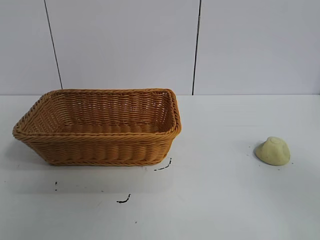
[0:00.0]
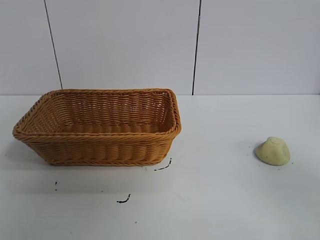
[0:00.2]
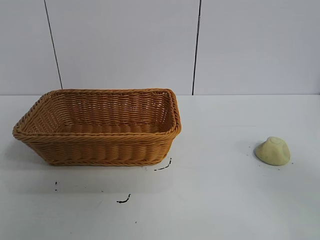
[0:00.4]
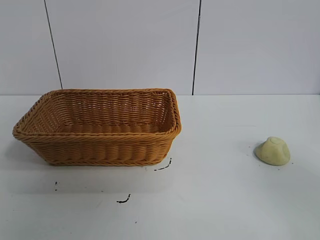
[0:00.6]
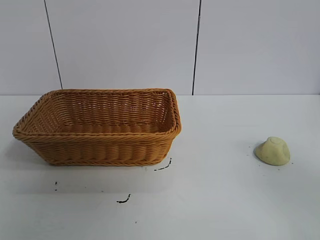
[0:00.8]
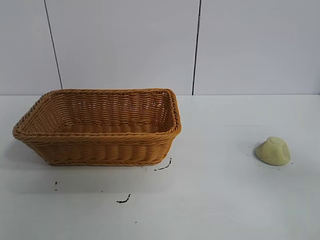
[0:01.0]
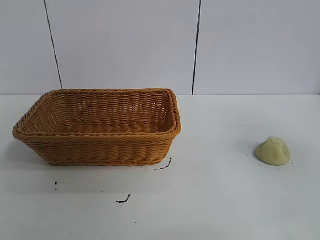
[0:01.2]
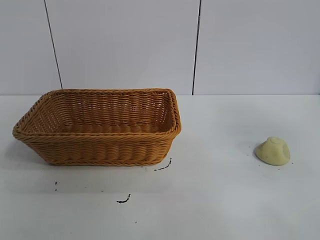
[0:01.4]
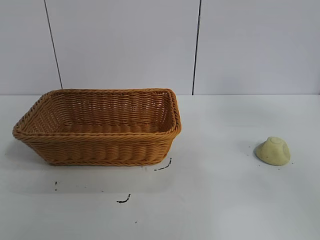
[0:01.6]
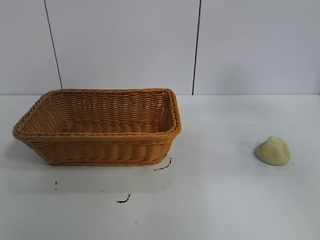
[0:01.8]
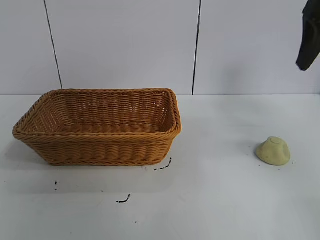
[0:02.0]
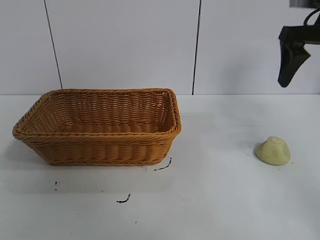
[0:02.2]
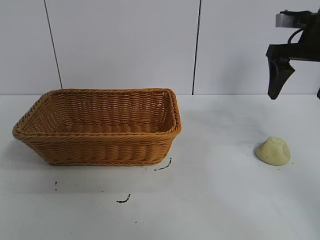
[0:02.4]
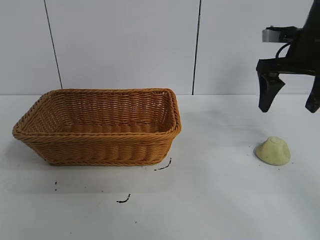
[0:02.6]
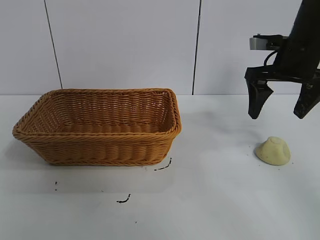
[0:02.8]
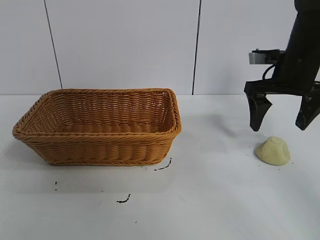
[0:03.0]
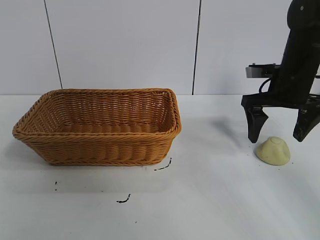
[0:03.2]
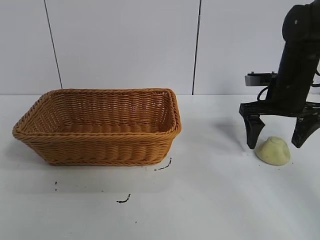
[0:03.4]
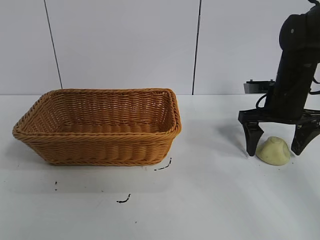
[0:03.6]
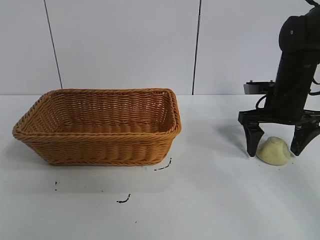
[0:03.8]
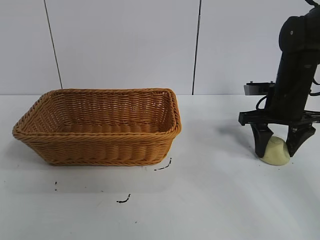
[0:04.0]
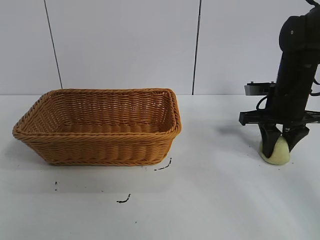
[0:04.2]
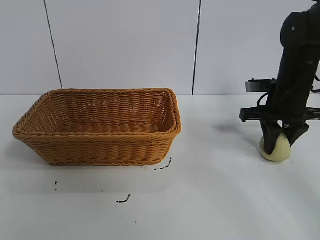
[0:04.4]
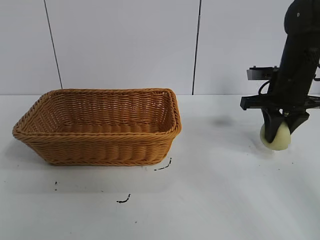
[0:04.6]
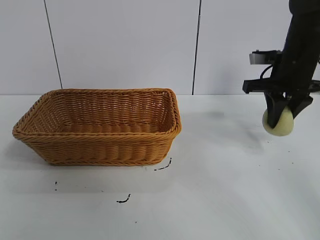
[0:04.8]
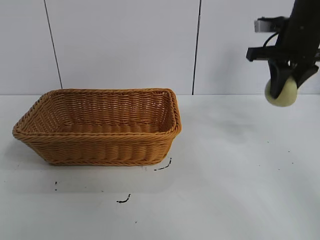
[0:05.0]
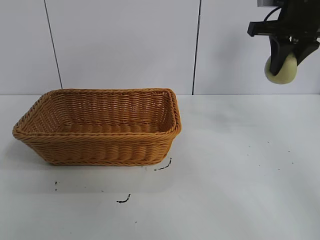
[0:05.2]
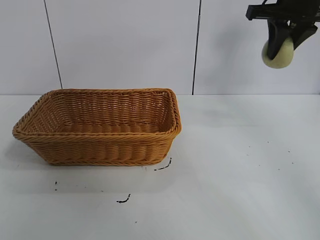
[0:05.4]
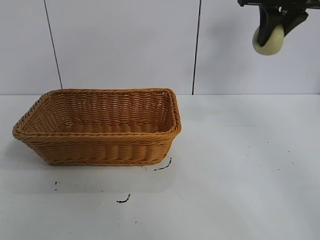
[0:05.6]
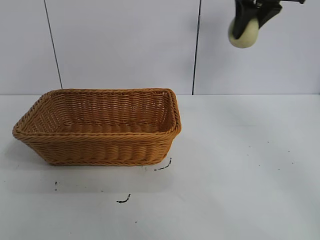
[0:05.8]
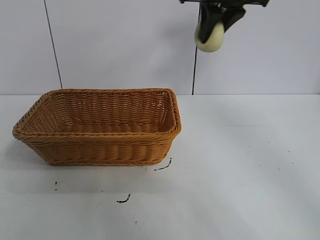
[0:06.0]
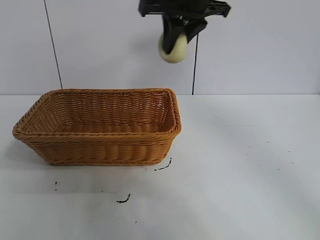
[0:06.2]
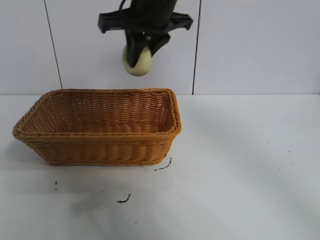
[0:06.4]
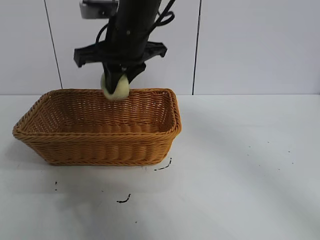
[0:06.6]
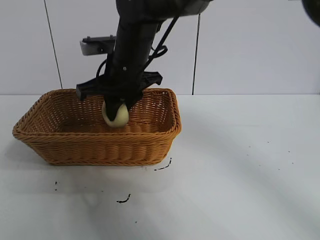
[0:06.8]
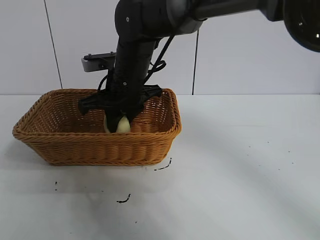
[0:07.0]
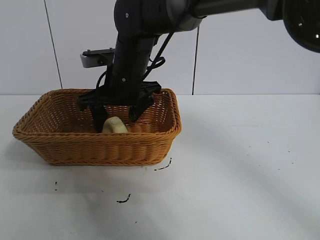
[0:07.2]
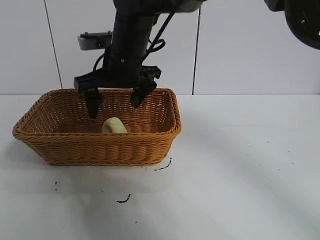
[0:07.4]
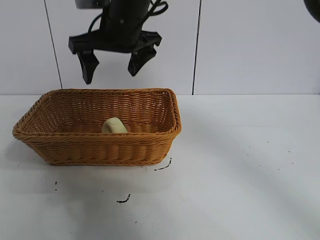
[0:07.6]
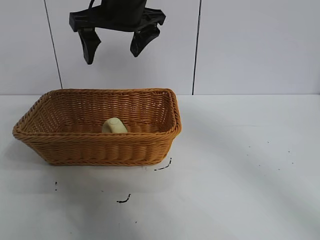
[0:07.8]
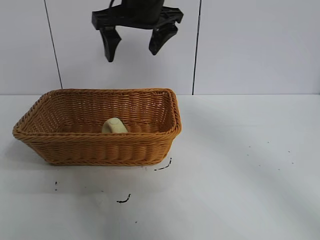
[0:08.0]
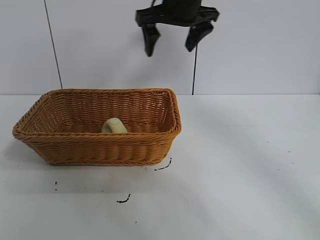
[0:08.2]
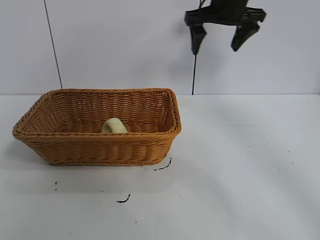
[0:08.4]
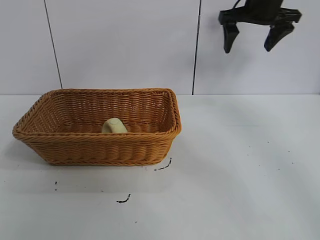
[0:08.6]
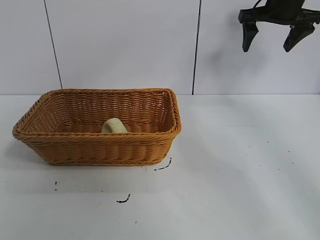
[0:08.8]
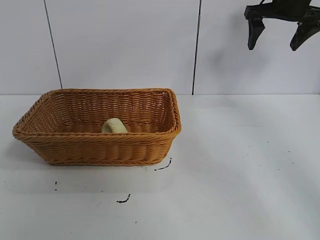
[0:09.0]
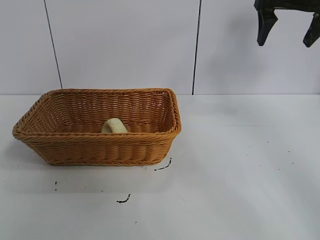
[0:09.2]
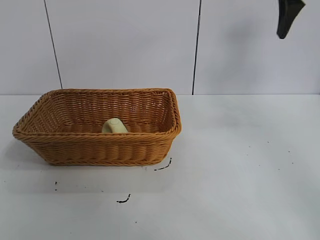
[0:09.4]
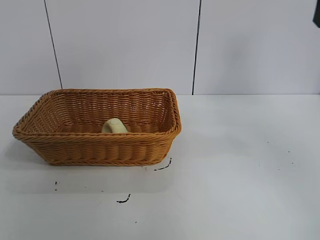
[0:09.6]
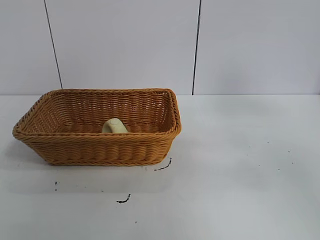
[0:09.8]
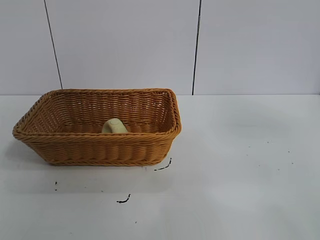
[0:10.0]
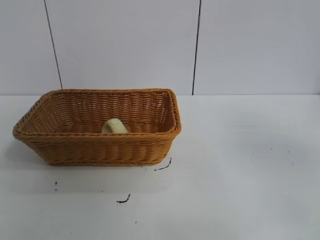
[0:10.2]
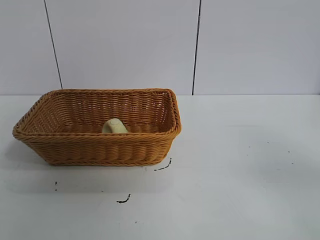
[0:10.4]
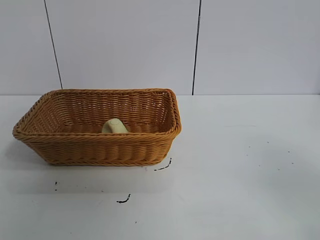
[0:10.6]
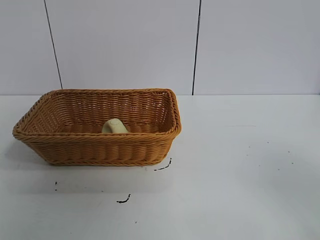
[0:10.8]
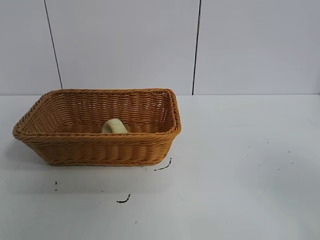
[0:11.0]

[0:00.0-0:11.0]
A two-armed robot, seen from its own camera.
Task of the whole recording: pick up the egg yolk pastry and put it into the basket.
Step, 0:01.0 to 0:04.2: Grasp egg yolk pastry with right gripper.
Step, 0:04.4 to 0:07.2: Place the egg yolk pastry in the basket with right gripper.

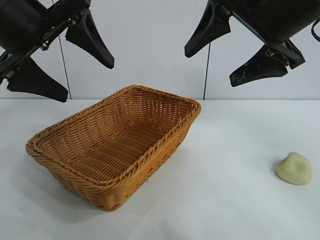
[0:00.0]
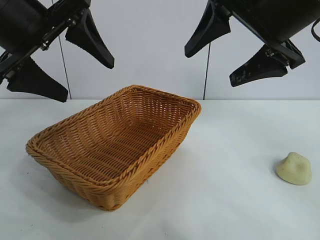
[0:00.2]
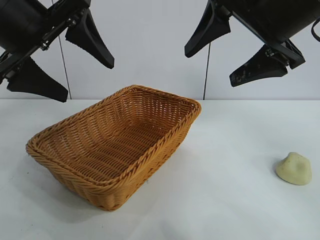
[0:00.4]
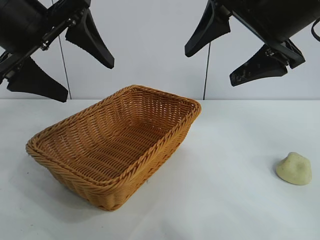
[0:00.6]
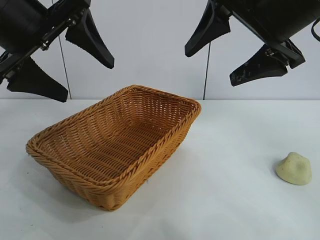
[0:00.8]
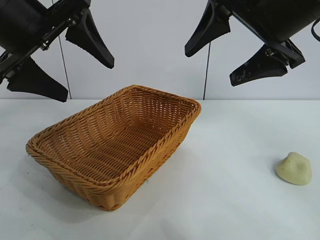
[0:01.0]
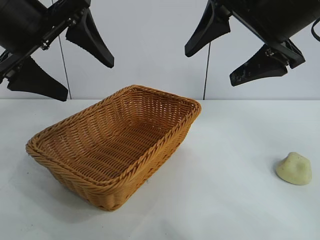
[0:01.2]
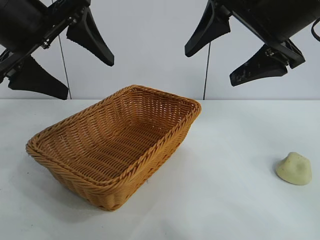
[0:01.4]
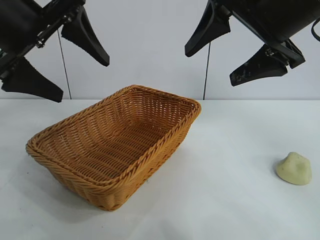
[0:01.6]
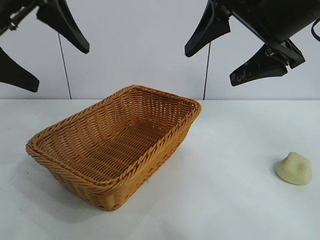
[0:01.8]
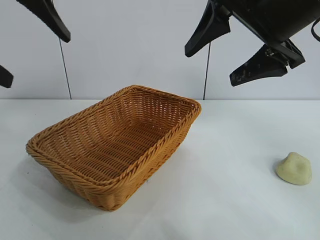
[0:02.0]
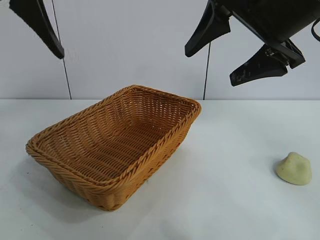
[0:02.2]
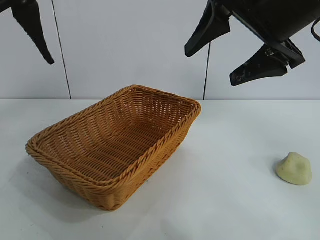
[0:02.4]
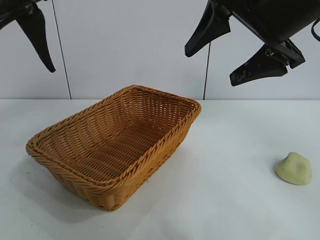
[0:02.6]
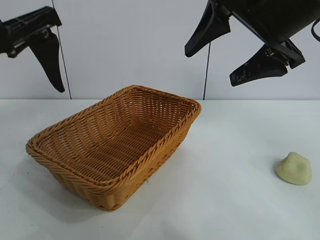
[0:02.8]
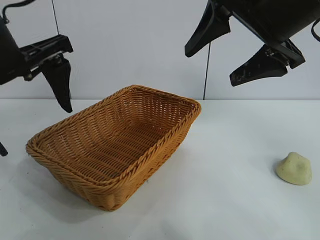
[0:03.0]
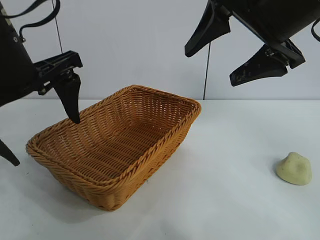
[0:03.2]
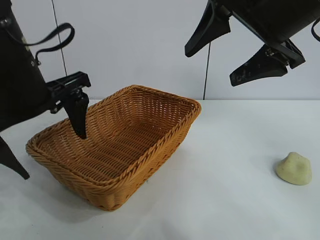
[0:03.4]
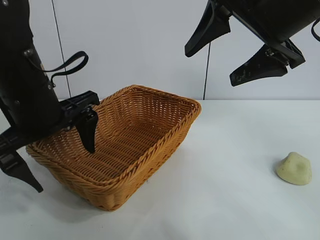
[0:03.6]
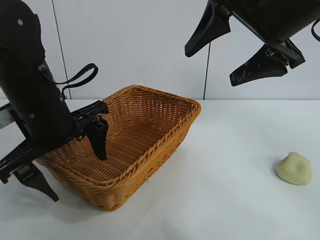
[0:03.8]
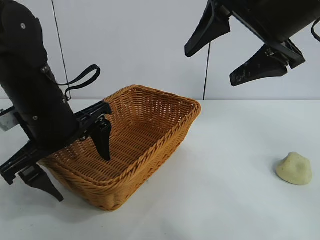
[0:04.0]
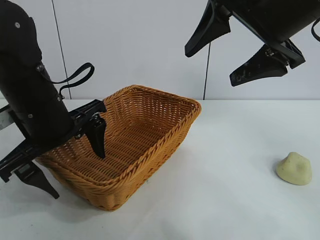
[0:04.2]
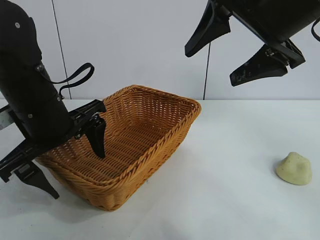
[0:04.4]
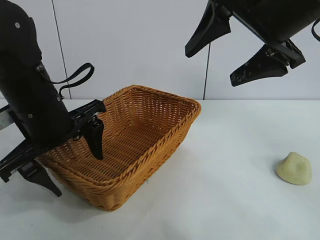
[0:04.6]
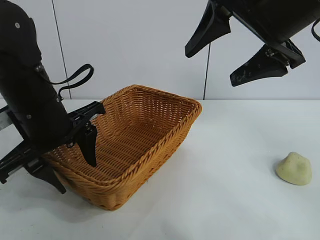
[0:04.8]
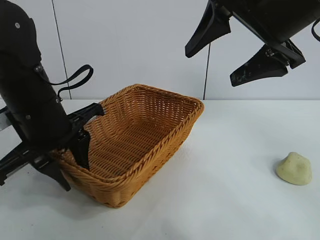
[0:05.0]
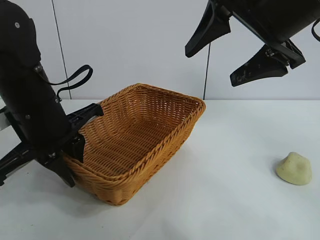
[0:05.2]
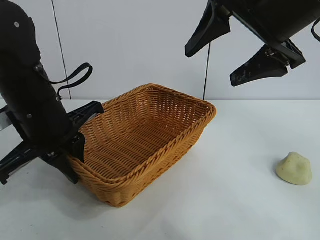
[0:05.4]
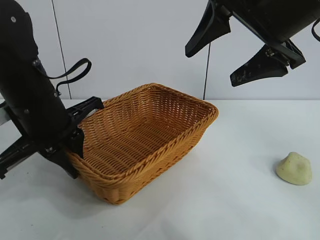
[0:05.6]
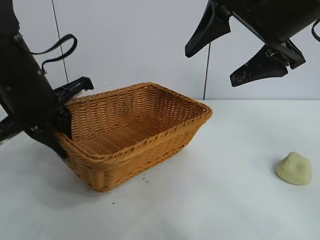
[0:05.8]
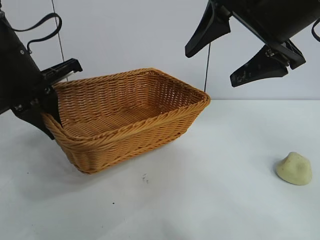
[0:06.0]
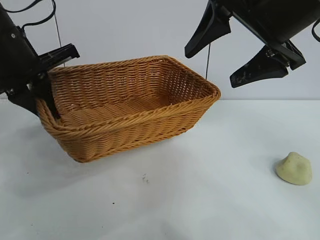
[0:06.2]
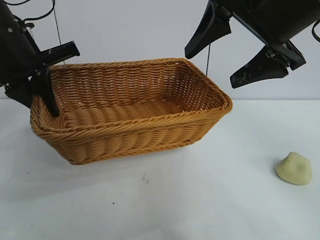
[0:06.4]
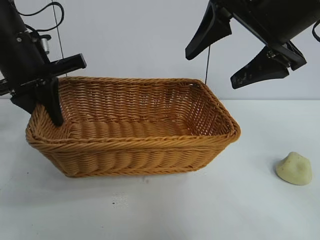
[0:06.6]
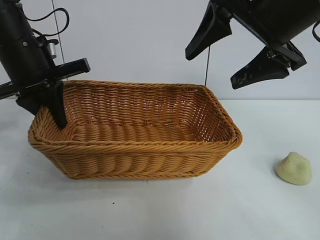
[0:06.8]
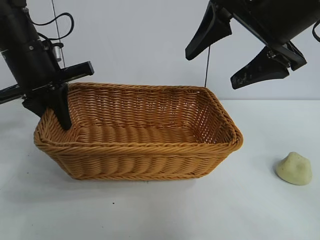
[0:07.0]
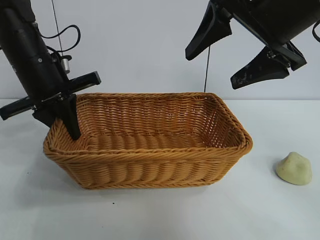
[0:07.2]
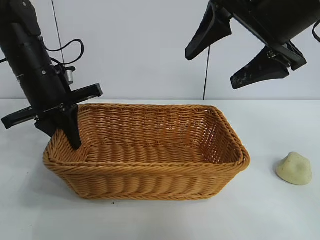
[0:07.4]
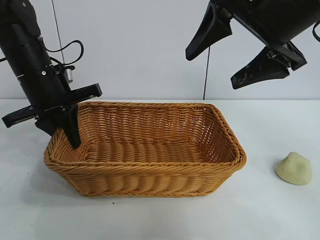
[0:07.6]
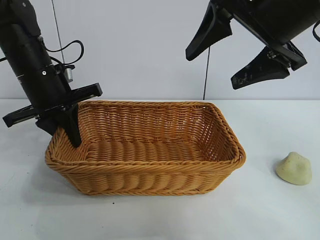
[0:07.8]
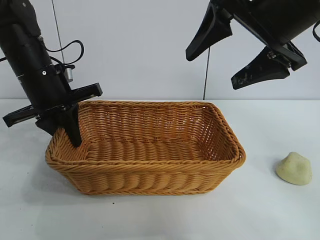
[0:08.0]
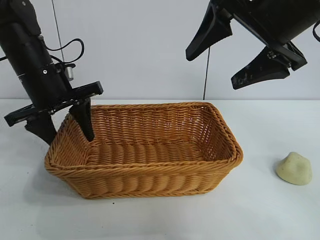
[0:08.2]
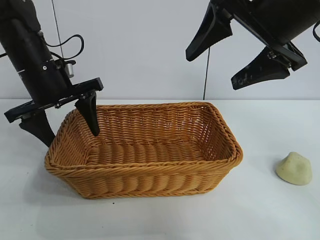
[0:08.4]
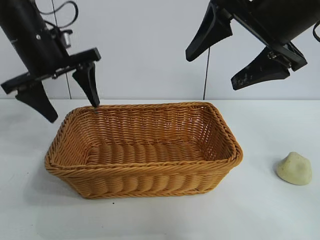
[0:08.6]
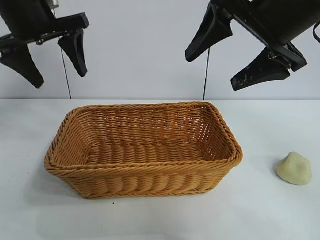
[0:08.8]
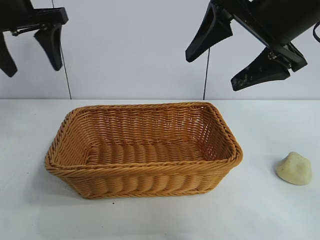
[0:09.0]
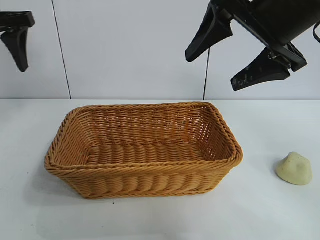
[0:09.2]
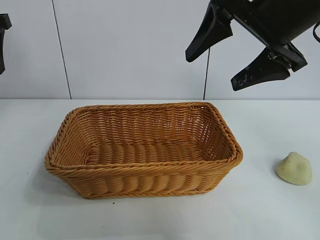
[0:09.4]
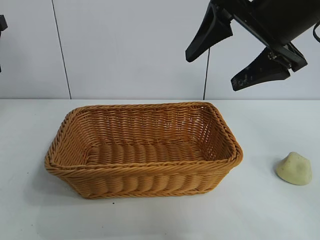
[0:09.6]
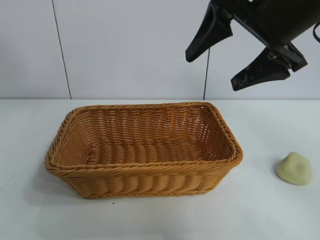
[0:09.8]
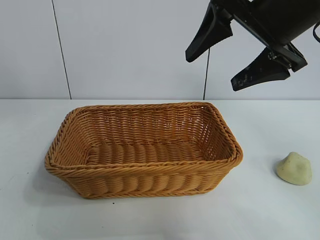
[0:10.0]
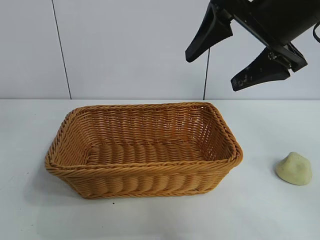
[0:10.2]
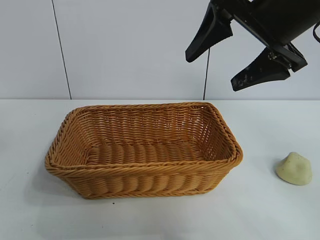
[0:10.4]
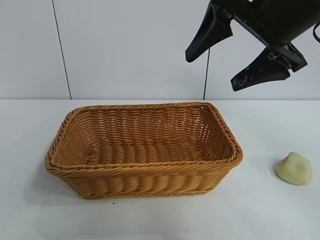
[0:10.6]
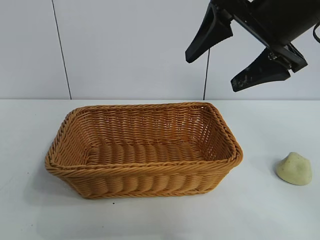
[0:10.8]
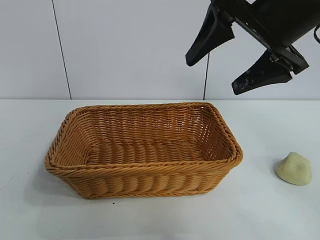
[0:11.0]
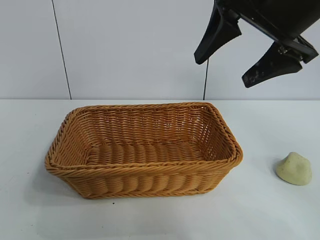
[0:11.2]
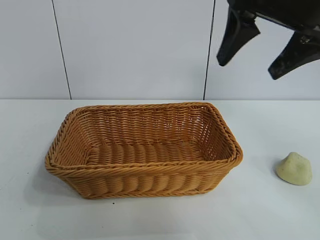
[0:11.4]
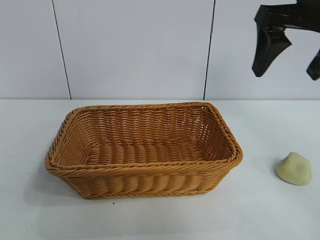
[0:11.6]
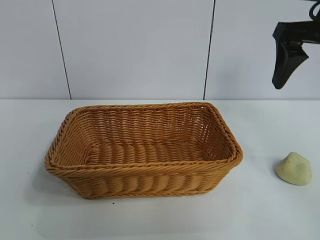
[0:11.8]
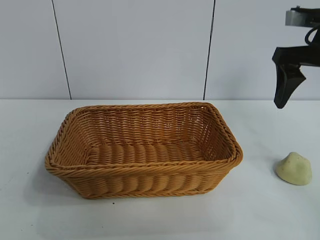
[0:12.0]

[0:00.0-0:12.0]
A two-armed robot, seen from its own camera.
Task of the whole recording: pick up the egg yolk pastry and put it into the basket.
Step, 0:01.6 to 0:05.2: Grasp the basket with left gripper.
Step, 0:05.4 to 0:08.2: Place the basket in the center of view with left gripper.
